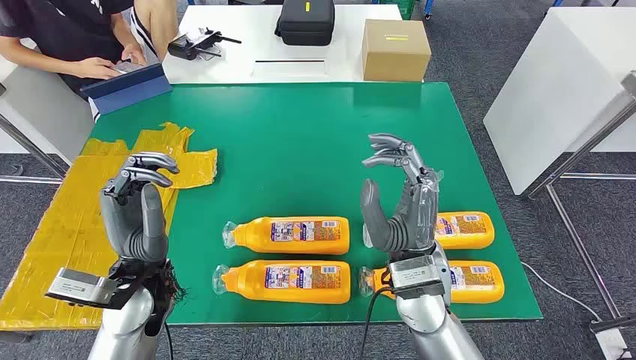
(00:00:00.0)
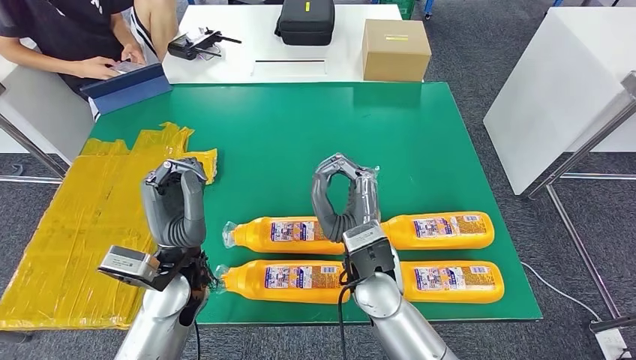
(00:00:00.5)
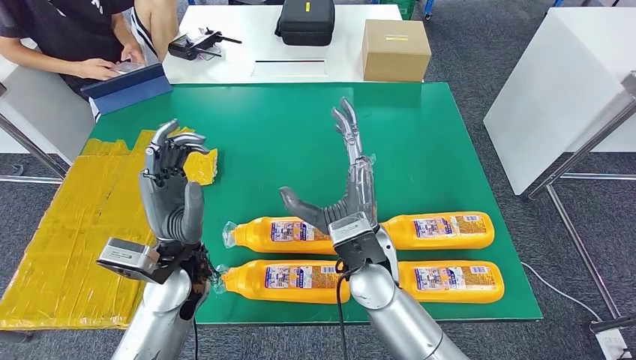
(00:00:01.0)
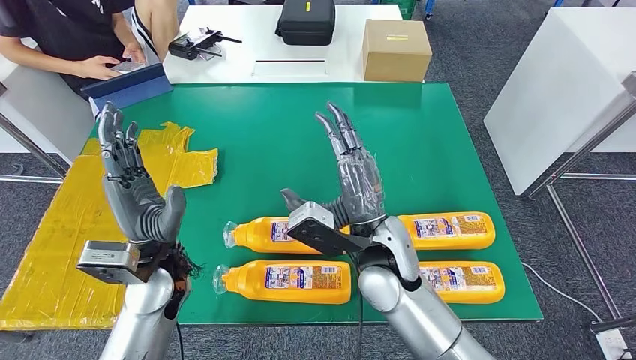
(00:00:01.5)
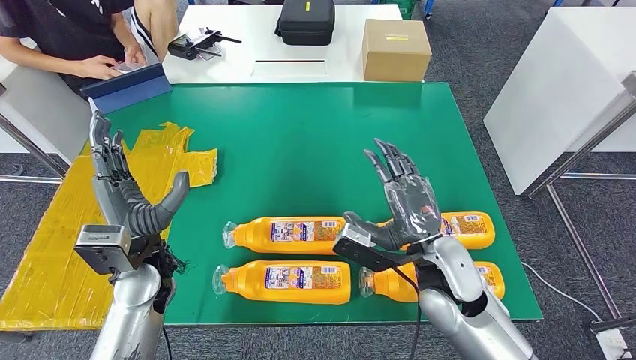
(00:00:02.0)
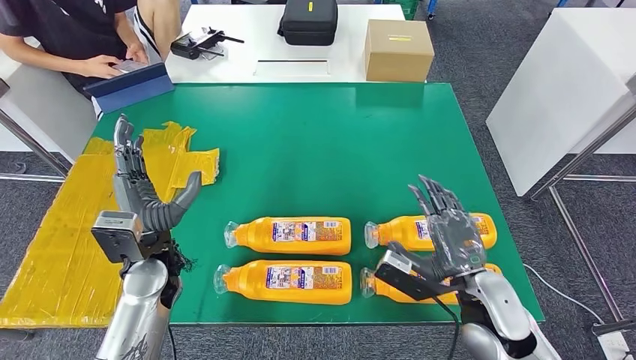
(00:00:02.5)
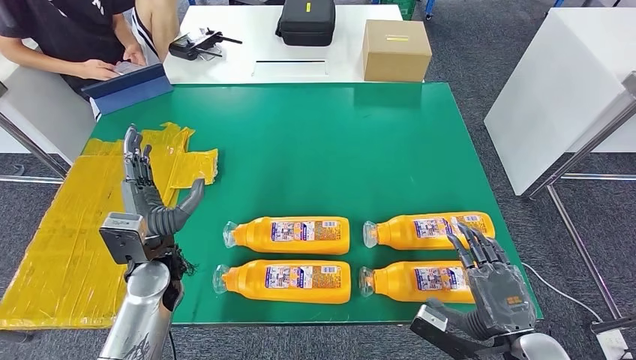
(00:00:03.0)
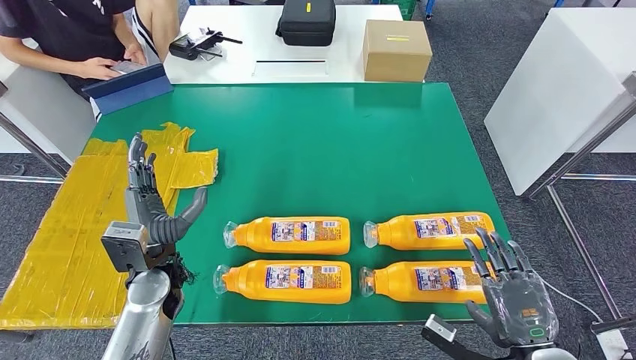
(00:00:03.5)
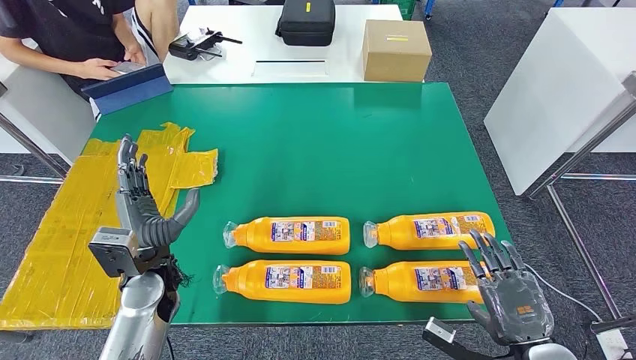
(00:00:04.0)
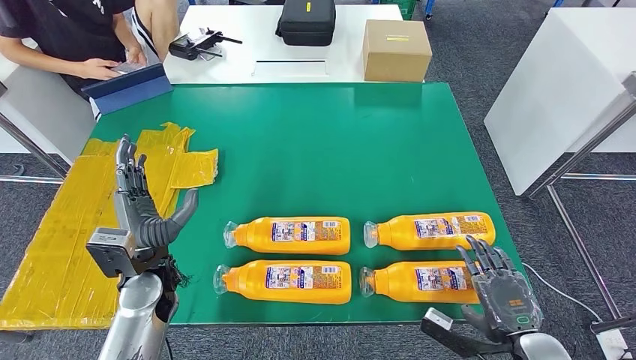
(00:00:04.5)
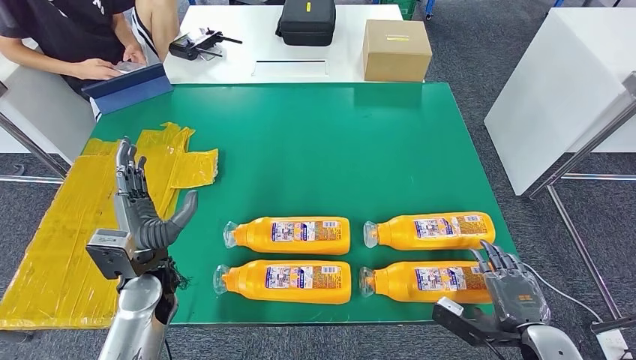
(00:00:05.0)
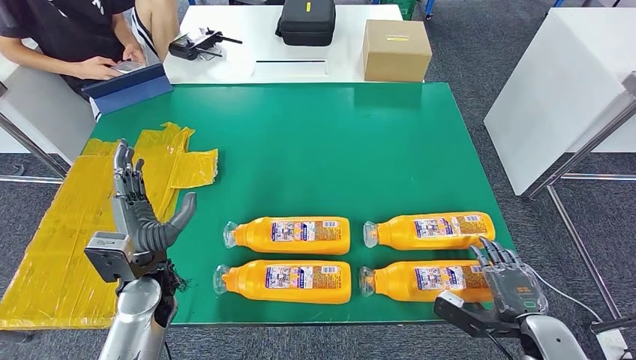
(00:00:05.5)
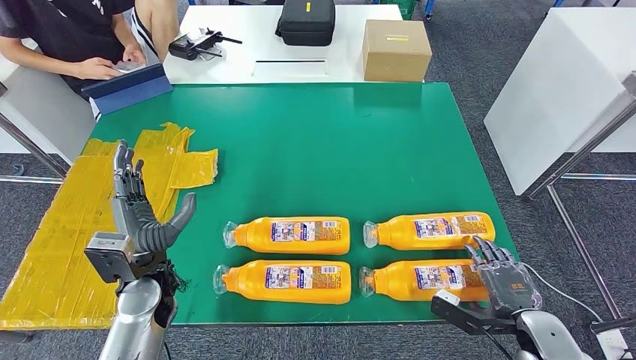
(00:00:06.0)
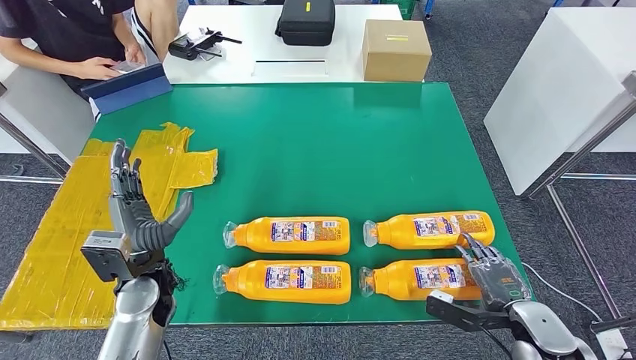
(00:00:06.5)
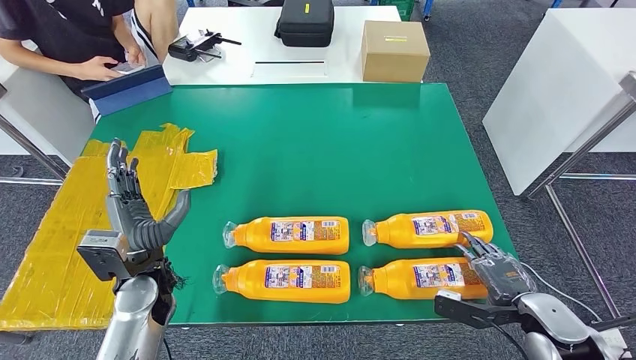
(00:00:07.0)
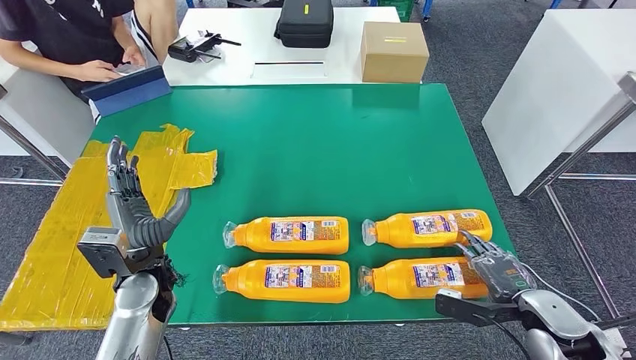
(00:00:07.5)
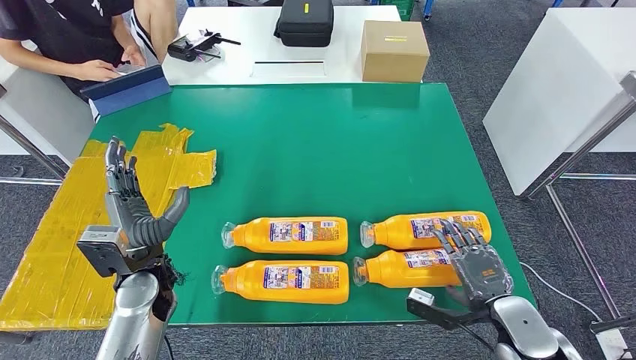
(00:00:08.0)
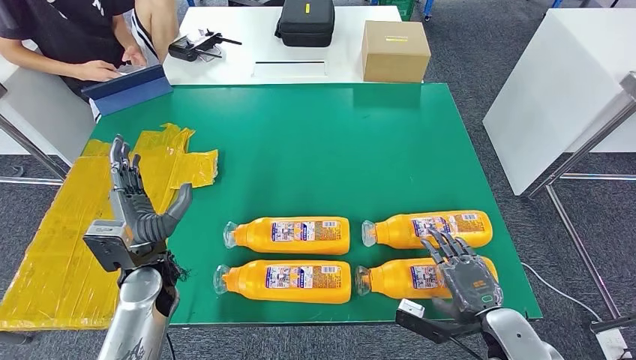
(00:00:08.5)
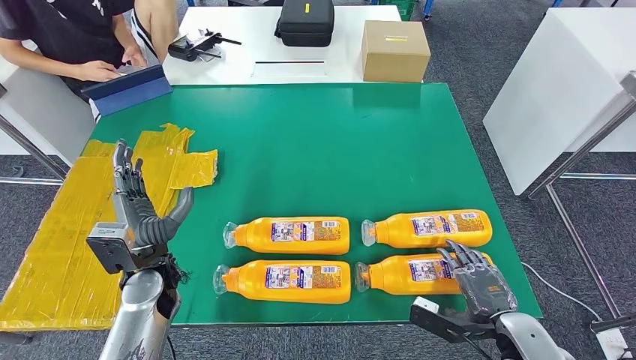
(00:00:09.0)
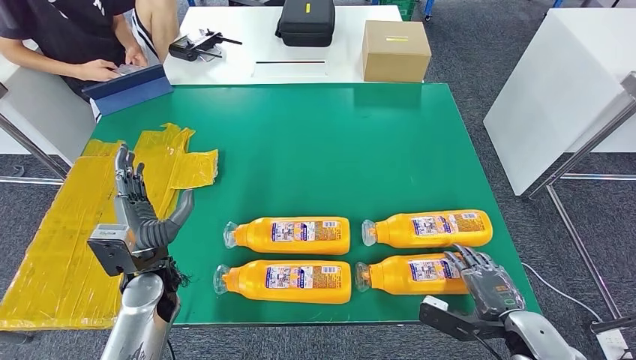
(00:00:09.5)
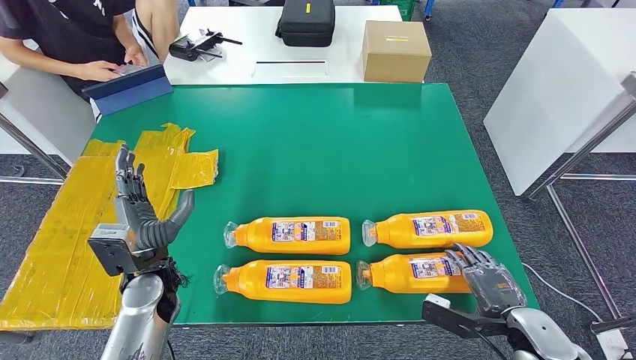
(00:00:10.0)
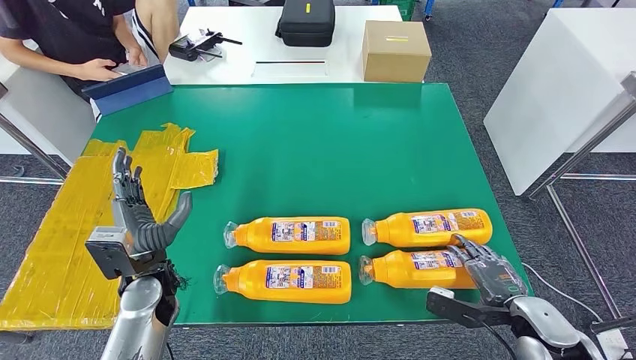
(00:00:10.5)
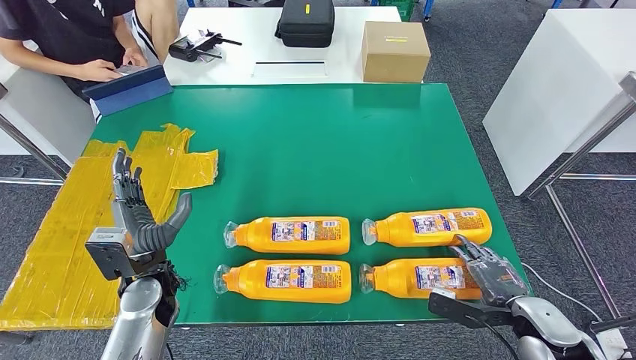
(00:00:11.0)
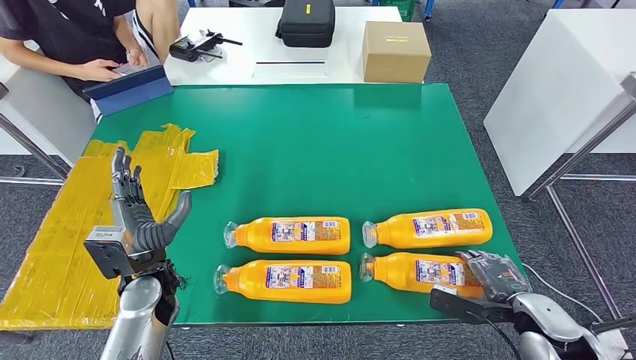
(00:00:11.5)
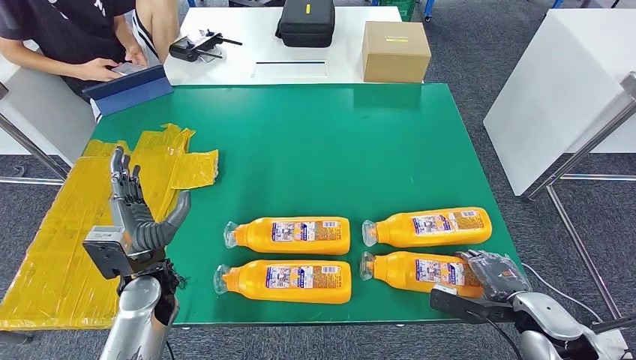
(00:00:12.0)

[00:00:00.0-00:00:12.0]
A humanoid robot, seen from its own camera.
00:00:02.0 to 00:00:04.0: The right hand heads to the right, backward and downward, covering roughly 20 cm.
00:00:04.0 to 00:00:06.0: The right hand goes about 5 cm forward.
00:00:06.0 to 00:00:08.0: The hands make only small movements.
00:00:08.0 to 00:00:10.0: The hands make only small movements.
00:00:10.0 to 00:00:12.0: The hands stay close to where they were, moving slightly.

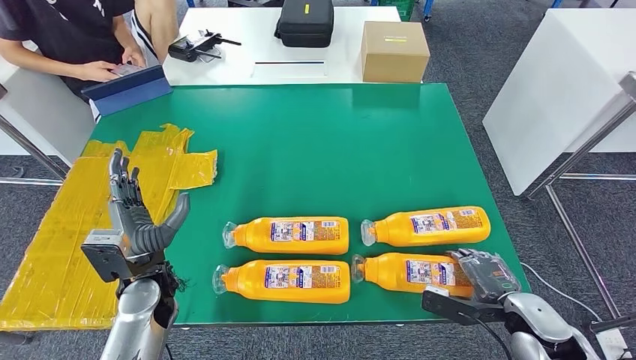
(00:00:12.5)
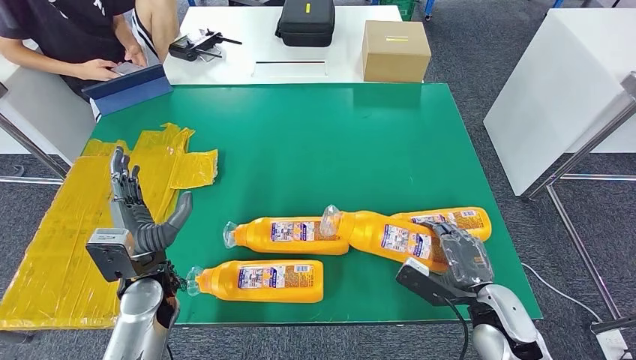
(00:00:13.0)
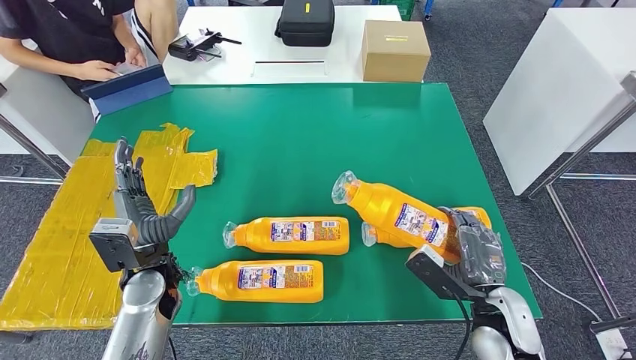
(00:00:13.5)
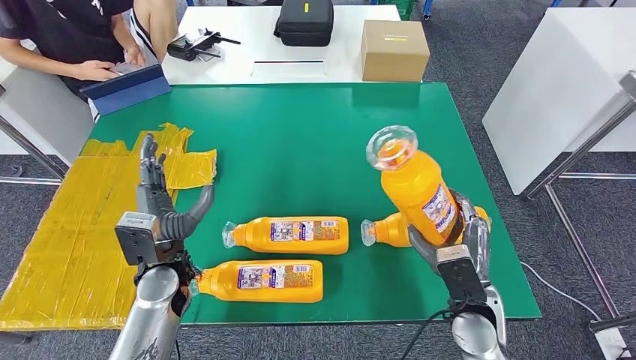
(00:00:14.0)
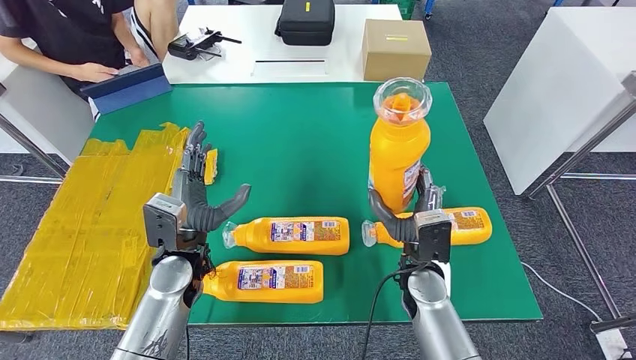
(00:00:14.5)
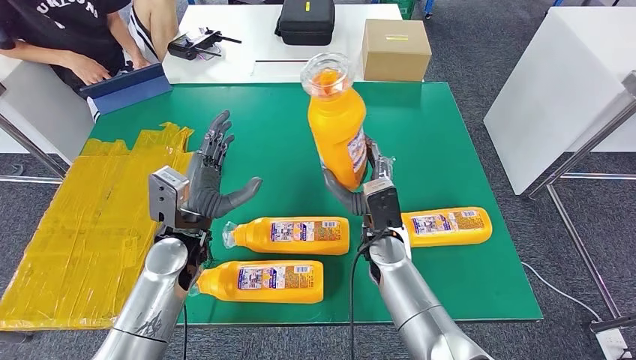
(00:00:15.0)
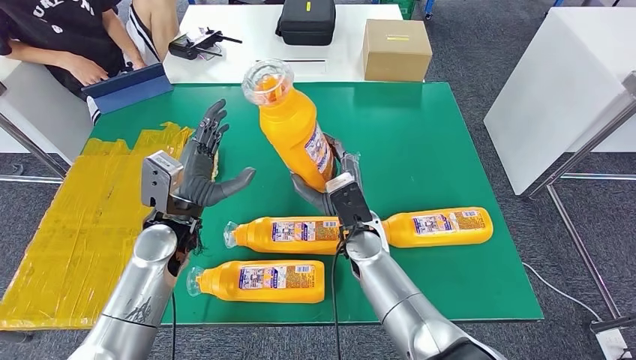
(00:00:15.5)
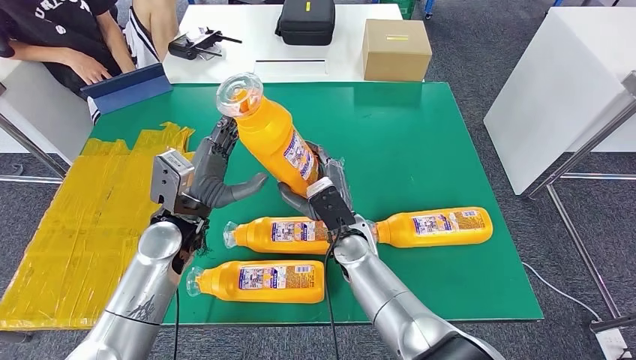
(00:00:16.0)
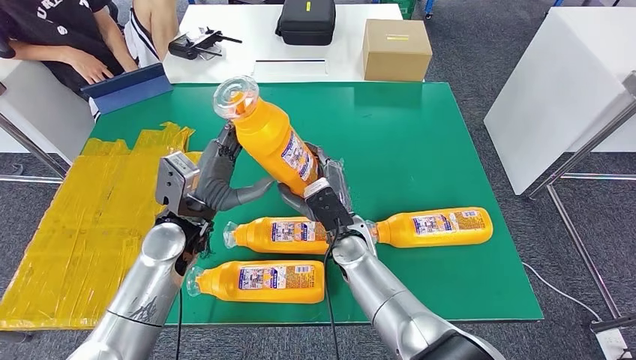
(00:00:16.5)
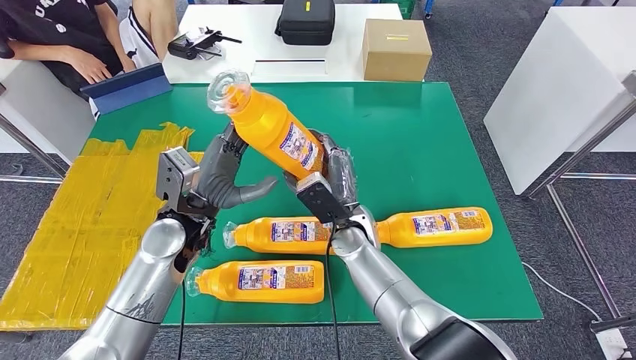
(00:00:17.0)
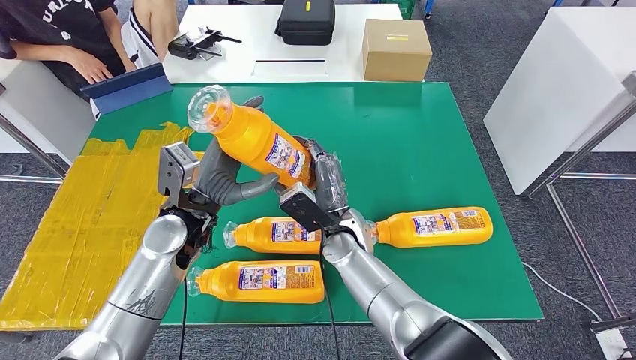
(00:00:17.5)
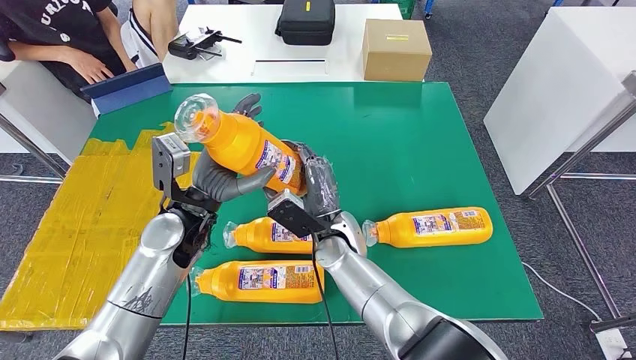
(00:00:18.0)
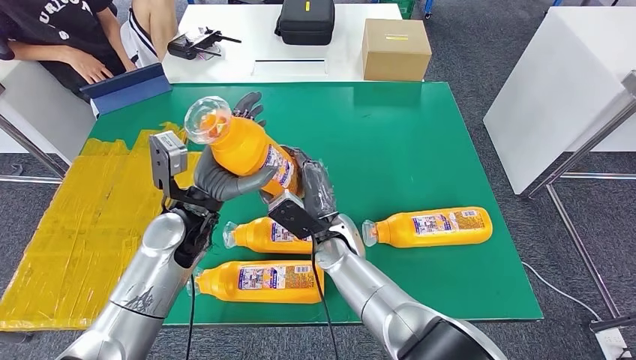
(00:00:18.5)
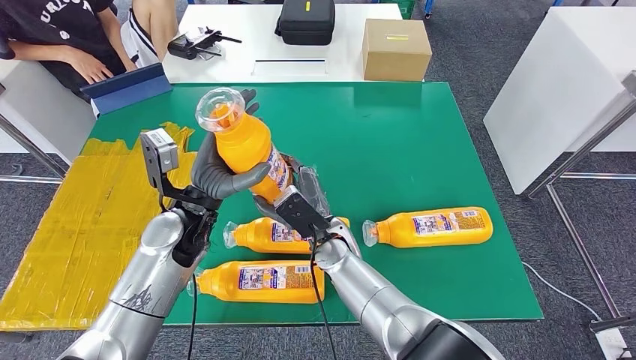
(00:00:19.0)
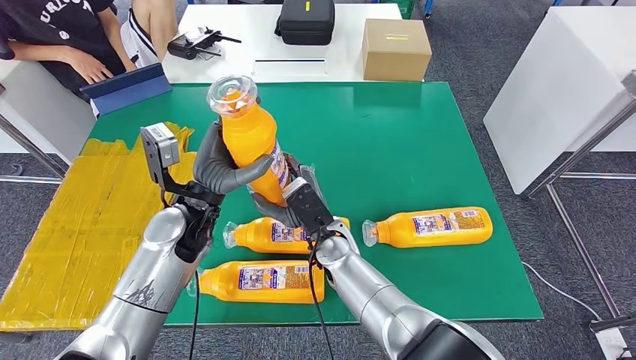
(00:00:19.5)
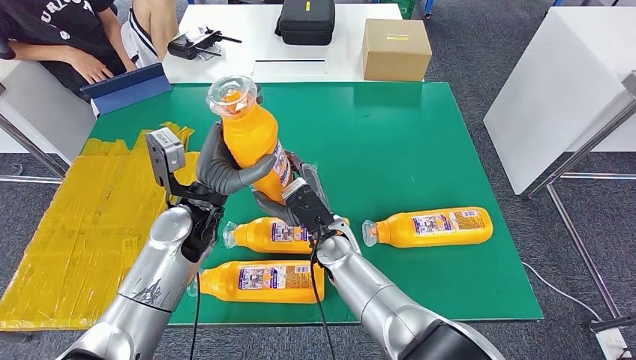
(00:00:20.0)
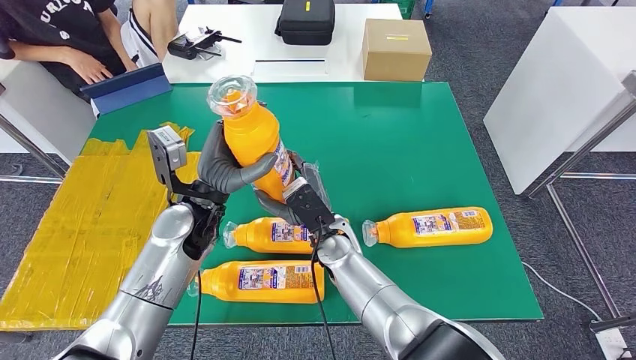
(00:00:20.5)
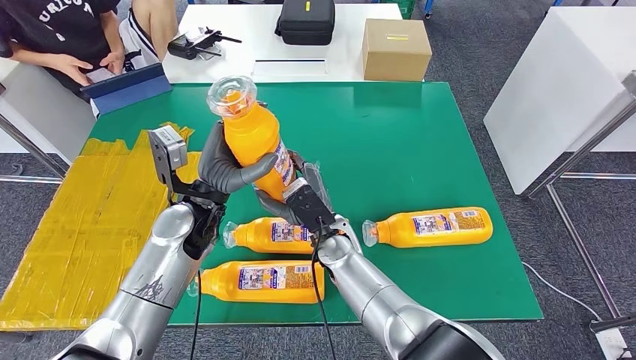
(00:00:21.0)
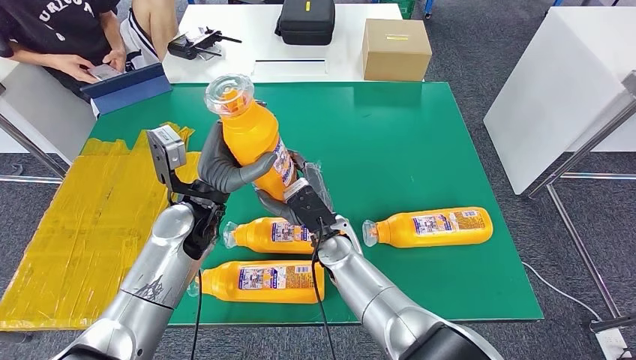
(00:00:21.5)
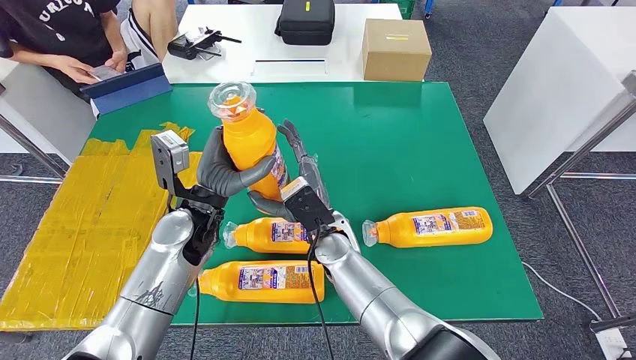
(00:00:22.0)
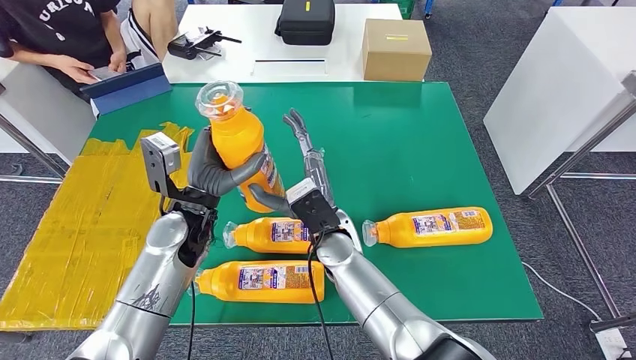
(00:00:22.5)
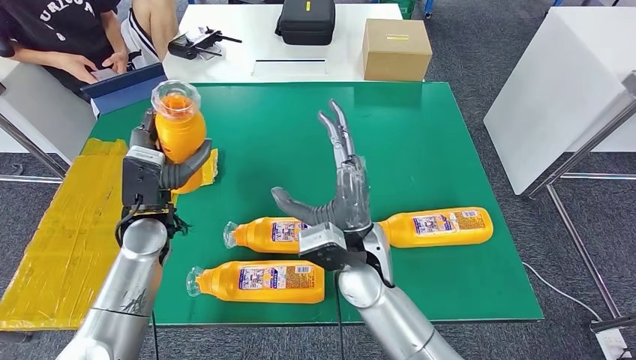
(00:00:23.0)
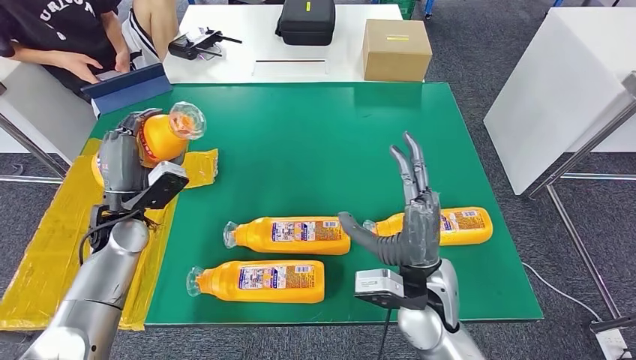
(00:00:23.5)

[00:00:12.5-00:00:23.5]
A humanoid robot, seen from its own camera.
00:00:16.0 to 00:00:18.0: There are only small adjustments of the hands.
00:00:20.0 to 00:00:21.5: Both hands stay about where they are.
